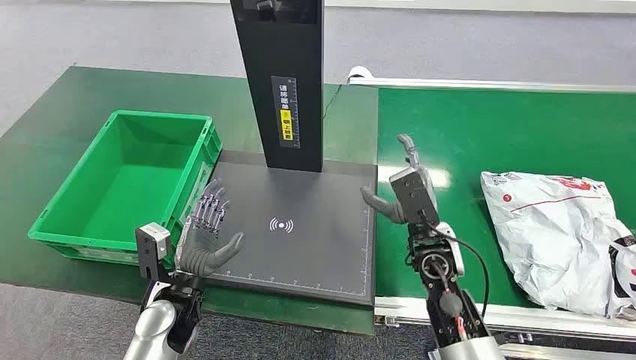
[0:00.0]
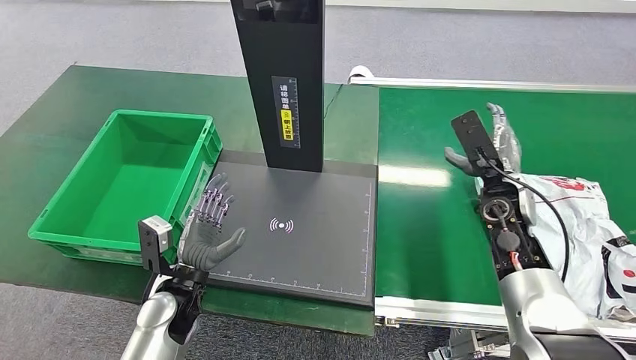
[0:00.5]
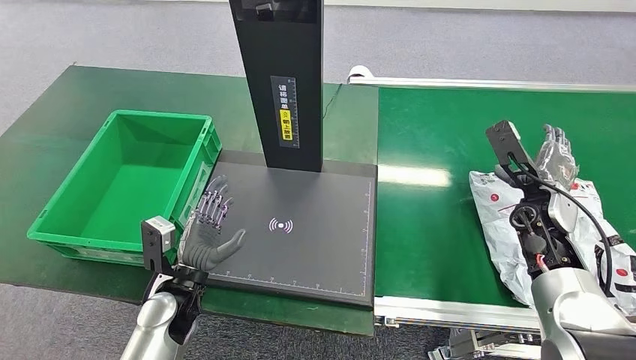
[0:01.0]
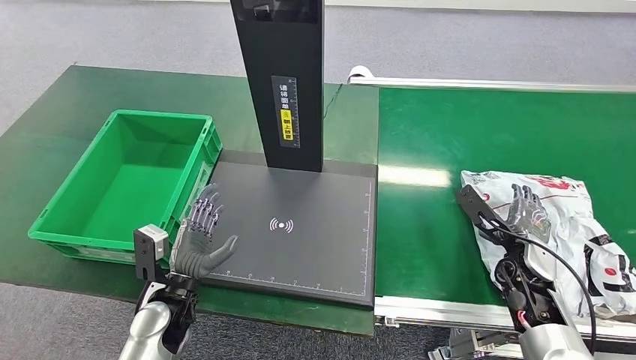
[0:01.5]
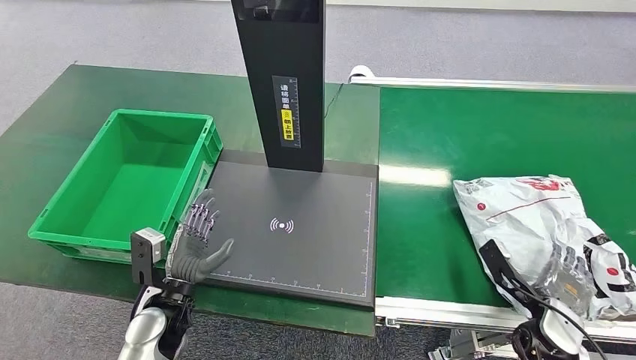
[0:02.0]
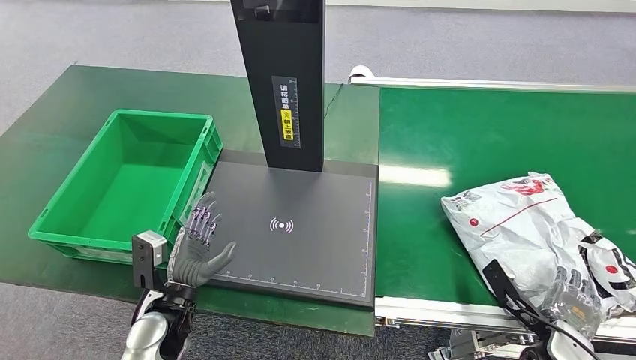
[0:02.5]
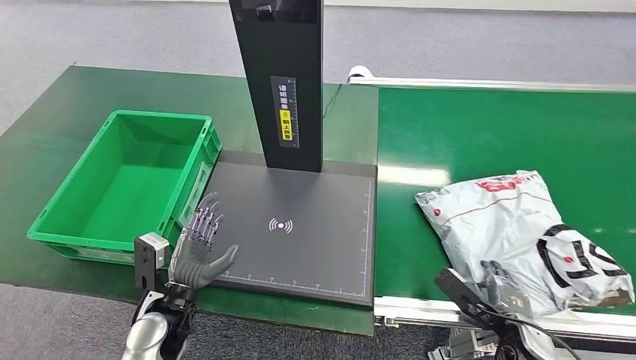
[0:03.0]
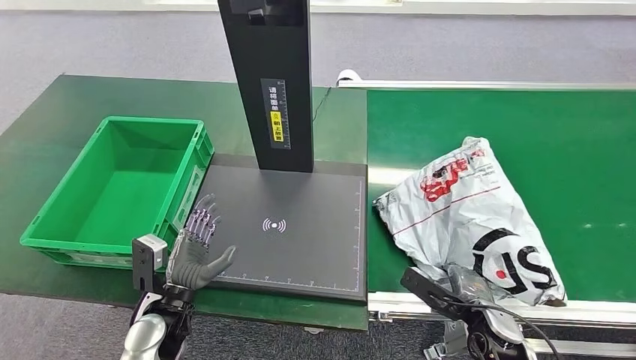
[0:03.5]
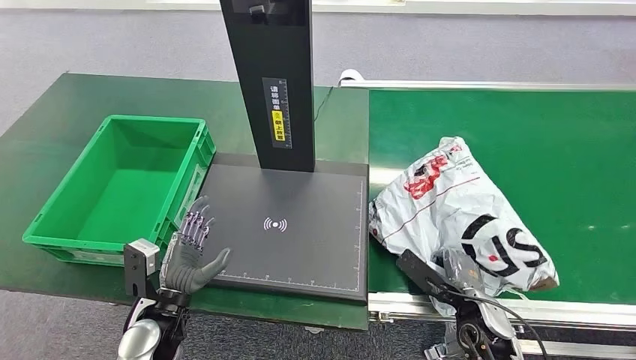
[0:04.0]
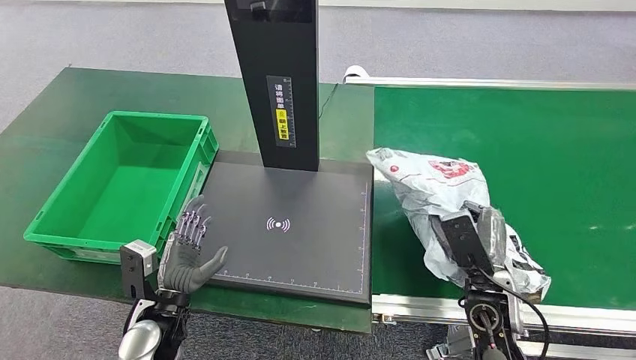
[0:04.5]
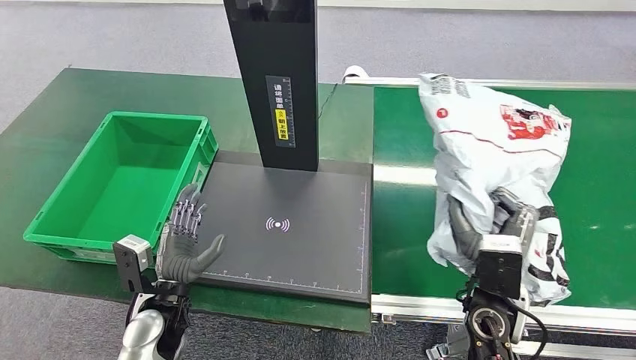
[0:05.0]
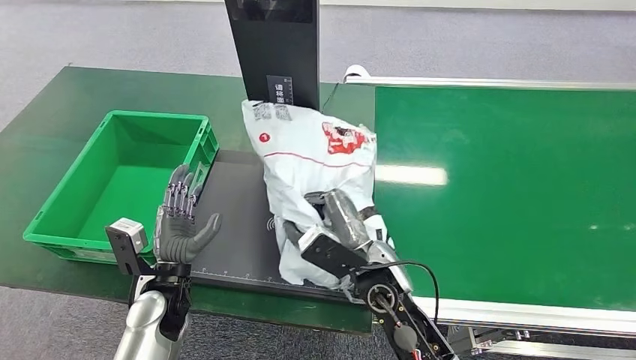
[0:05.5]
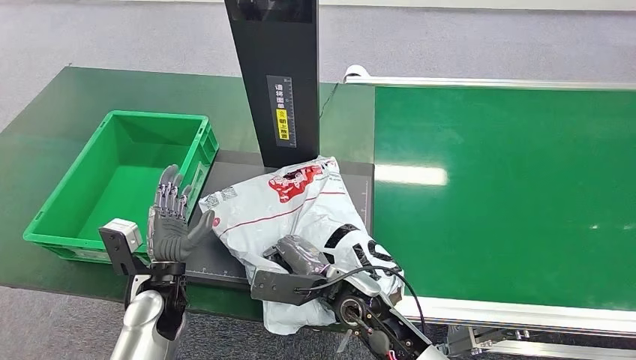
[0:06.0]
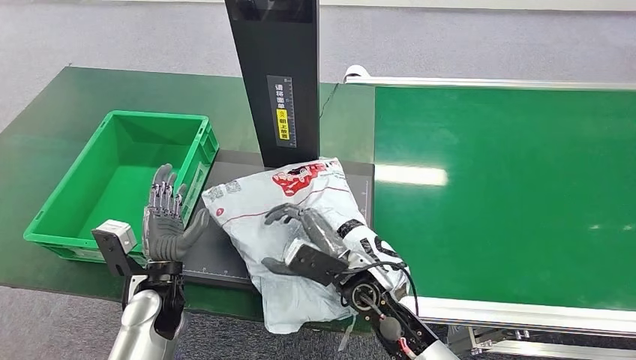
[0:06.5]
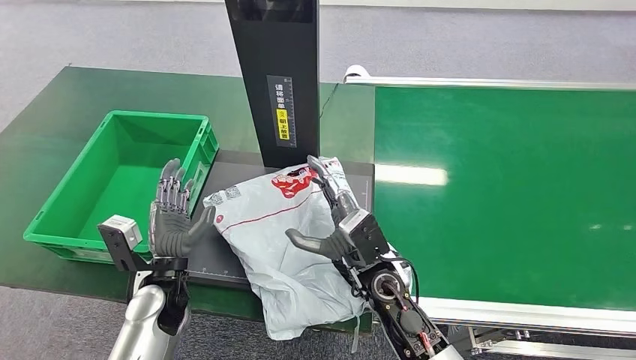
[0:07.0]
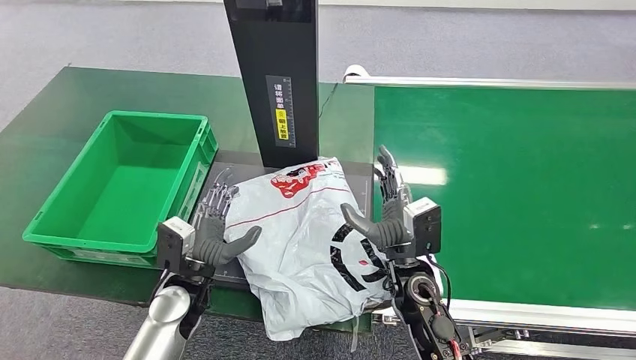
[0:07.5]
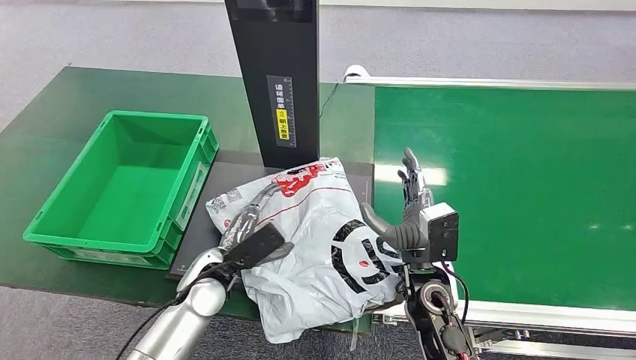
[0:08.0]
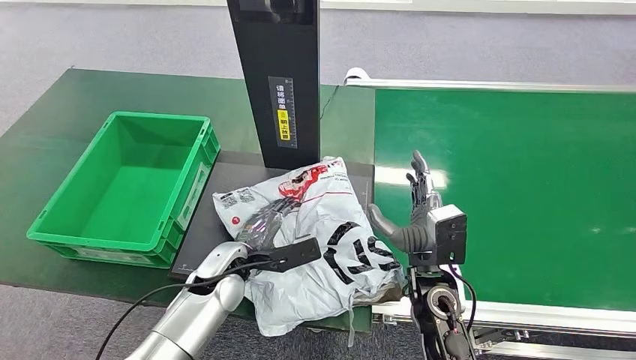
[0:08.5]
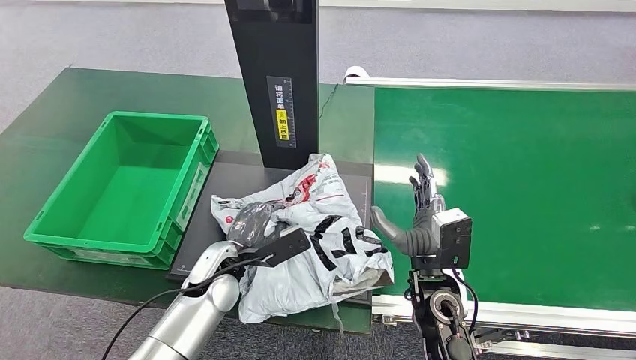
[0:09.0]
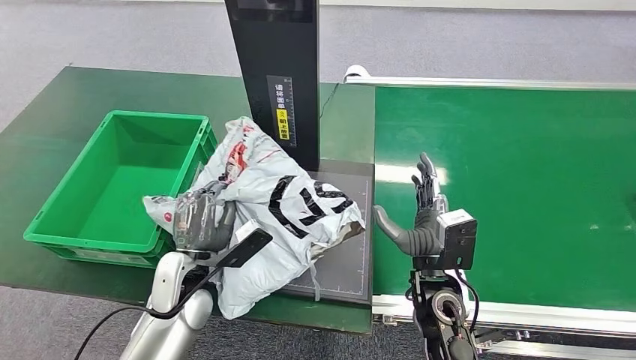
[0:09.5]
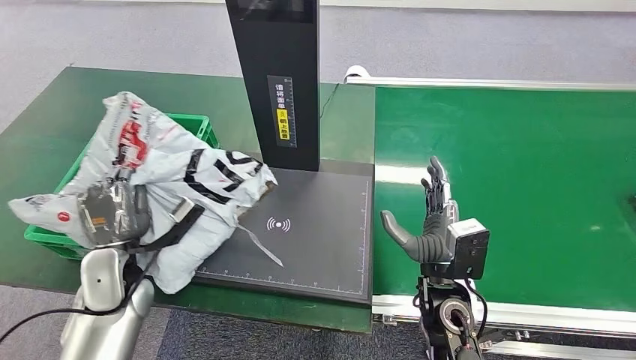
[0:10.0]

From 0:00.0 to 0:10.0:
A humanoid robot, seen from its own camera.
Step, from 0:00.0 to 0:04.0: Pick up the package from the conveyor belt.
Step, from 0:04.5 to 0:07.0: Place the package onto the inbound machine.
Step, from 0:07.5 to 0:09.5: Pick up the package from the inbound machine.
From 0:06.0 to 0:08.0: The left hand is displaced to the right by some 5 cm; the right hand goes some 10 cm to the right.

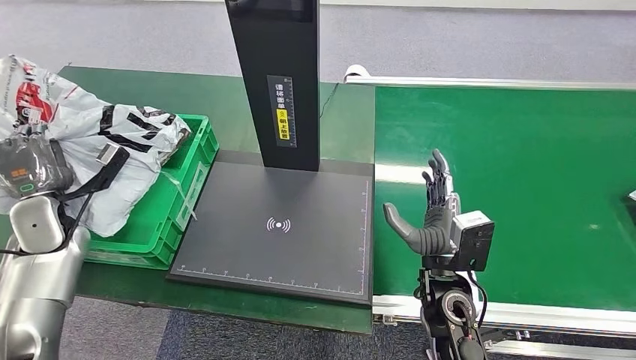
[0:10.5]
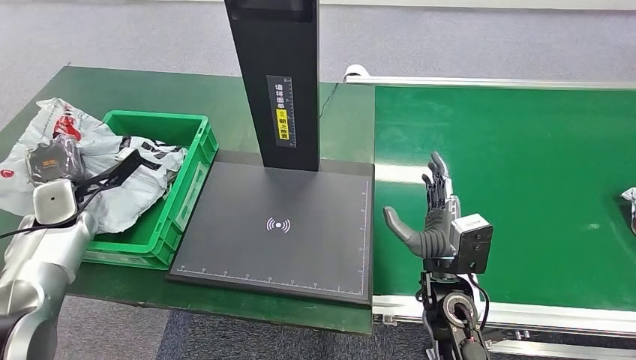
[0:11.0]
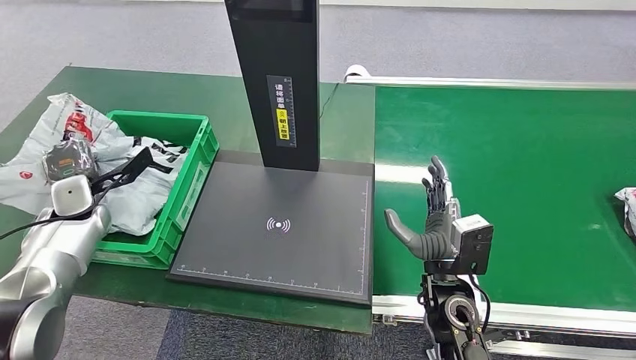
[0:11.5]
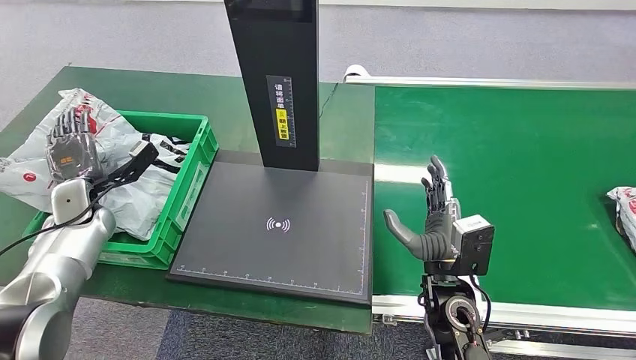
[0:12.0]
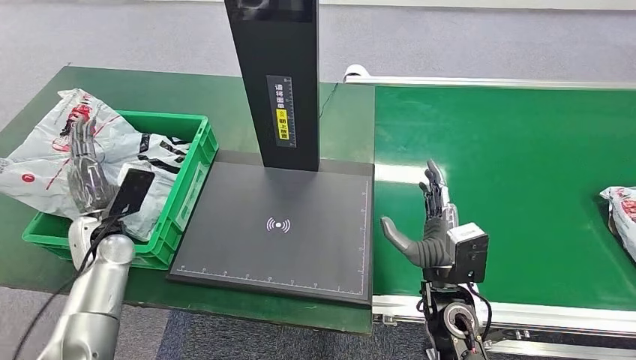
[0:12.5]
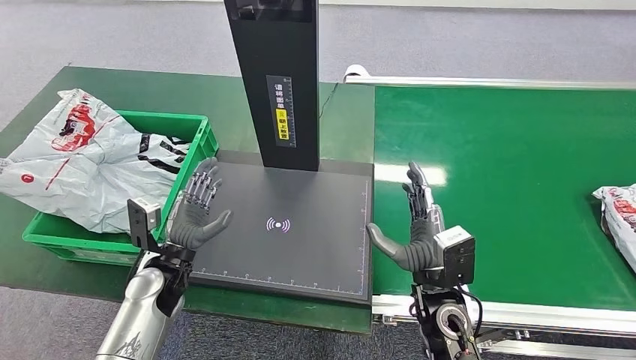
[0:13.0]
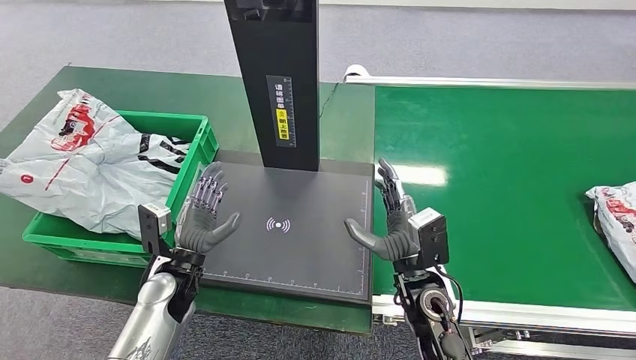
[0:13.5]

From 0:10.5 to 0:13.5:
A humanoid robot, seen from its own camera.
Step, from 0:10.5 to 0:13.5: Place the package into the parcel locker.
From 0:12.0 to 0:13.5: The left hand shifts some 25 cm to the right and backward.

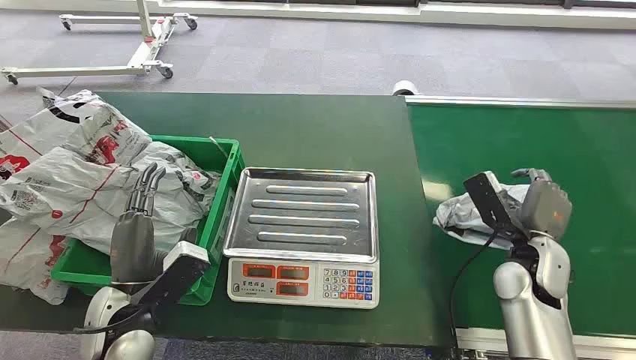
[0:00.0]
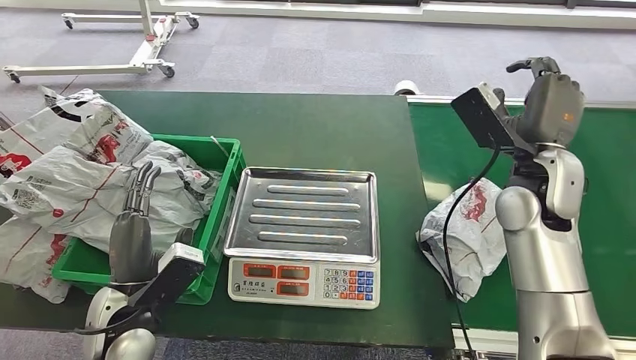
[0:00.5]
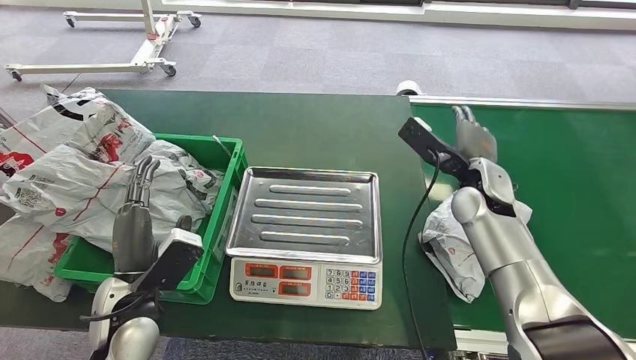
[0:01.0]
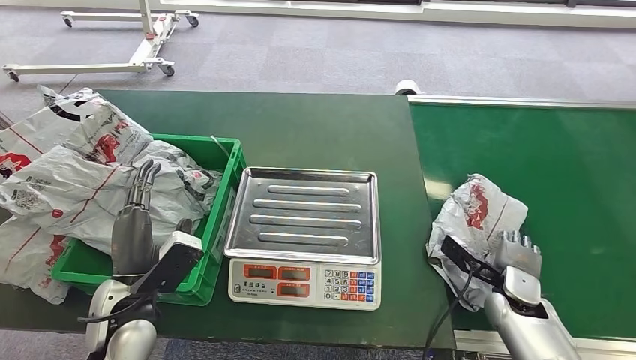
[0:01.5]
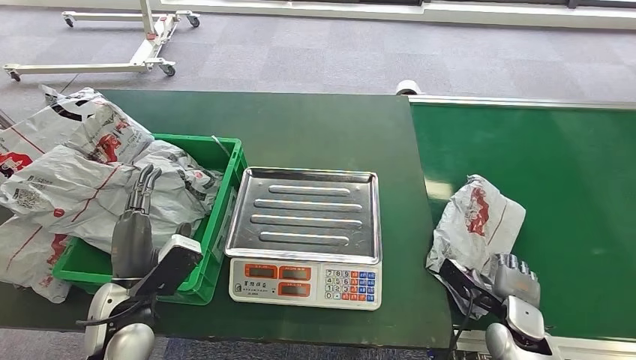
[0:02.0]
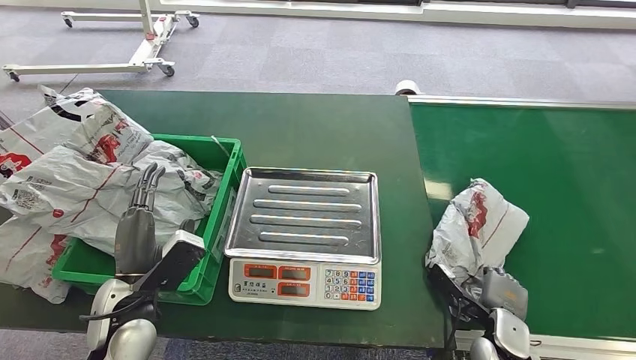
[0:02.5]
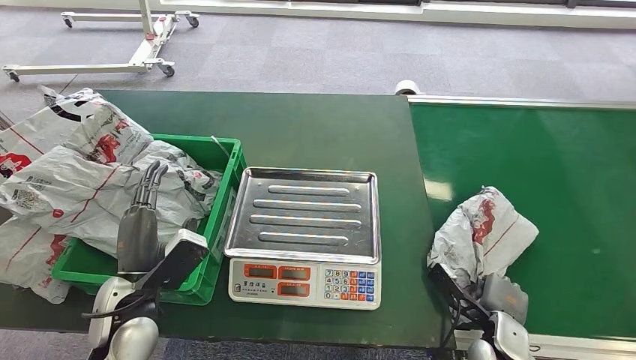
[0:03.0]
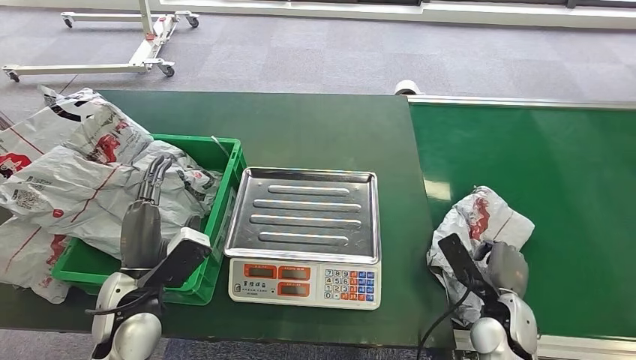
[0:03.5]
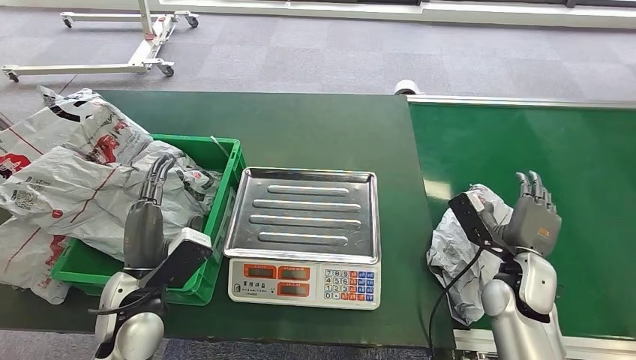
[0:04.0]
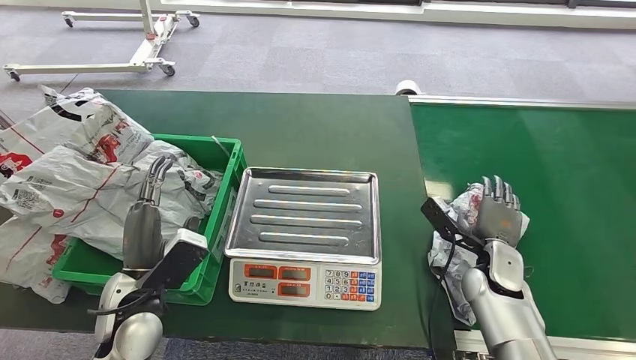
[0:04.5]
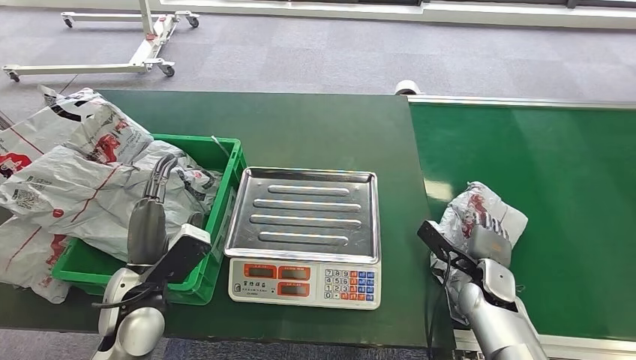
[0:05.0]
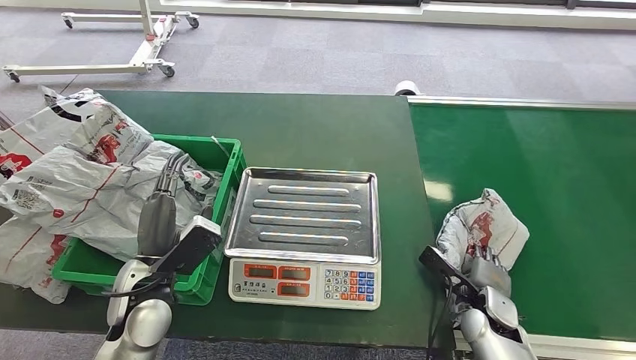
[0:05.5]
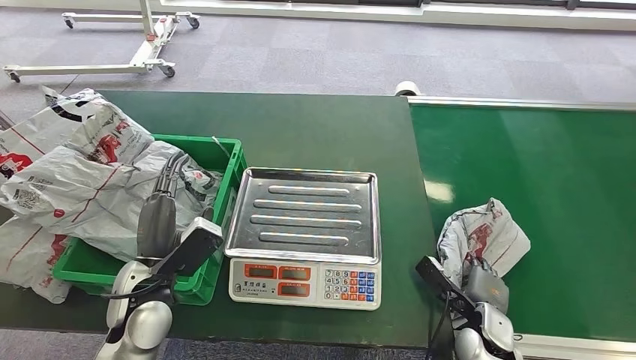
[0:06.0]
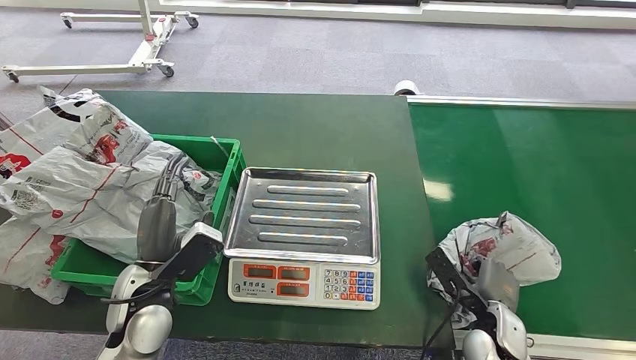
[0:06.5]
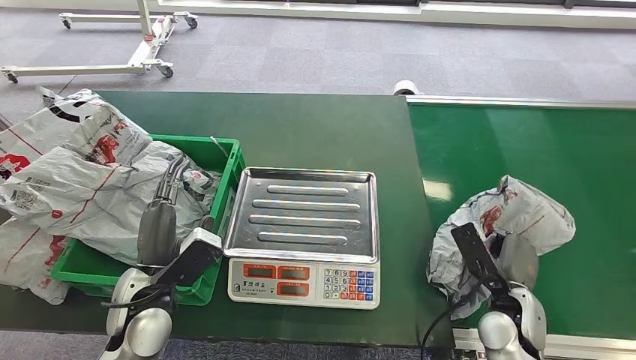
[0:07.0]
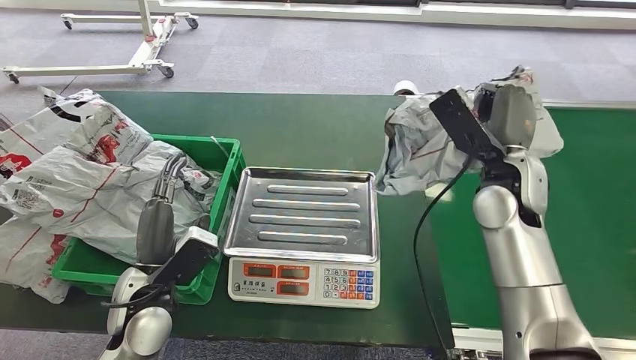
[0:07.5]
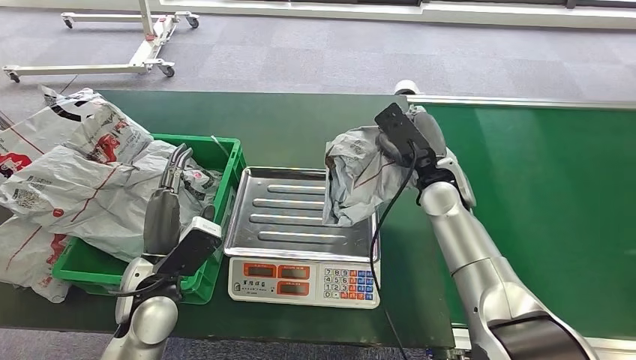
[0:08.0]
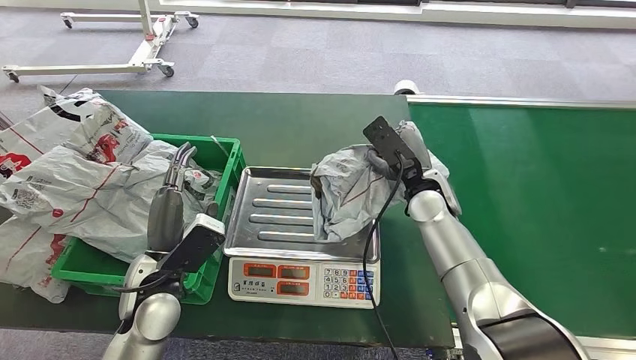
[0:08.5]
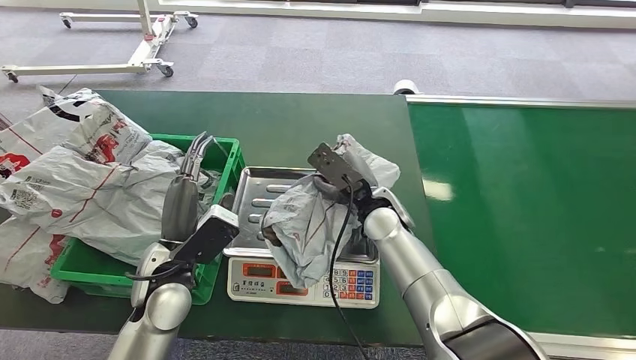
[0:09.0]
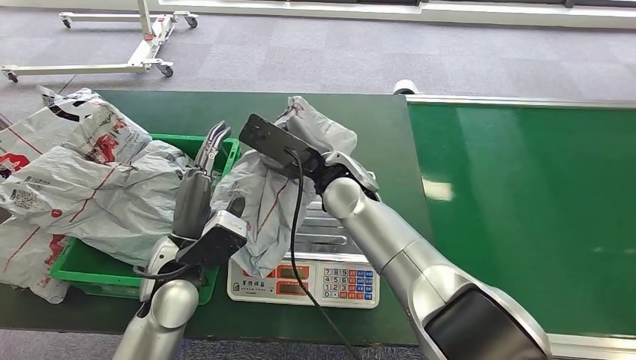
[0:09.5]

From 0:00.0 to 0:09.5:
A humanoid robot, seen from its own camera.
Step, from 0:00.0 to 0:07.0: Pick up the package from the conveyor belt.
From 0:02.0 to 0:04.0: The right hand moves upward and forward, about 10 cm.
From 0:04.0 to 0:05.5: The right hand heads downward, covering some 10 cm.
From 0:05.5 to 0:07.5: The right hand goes about 30 cm upward and forward.
